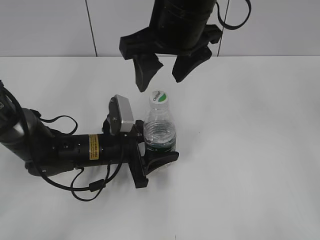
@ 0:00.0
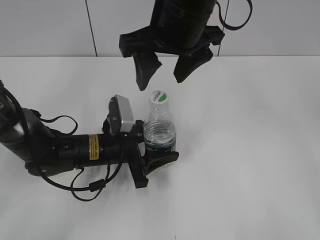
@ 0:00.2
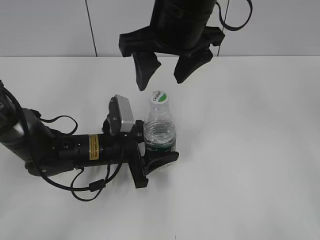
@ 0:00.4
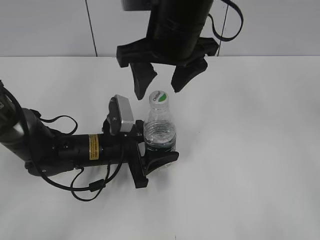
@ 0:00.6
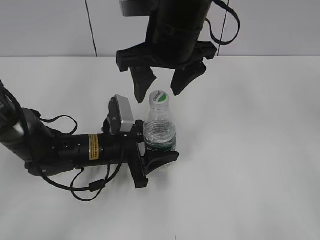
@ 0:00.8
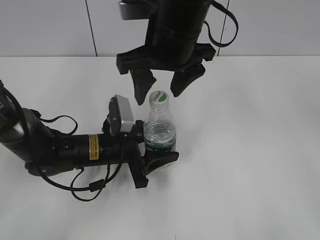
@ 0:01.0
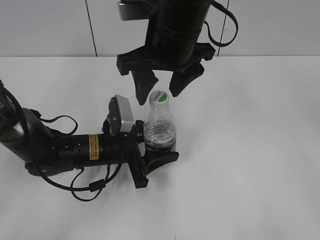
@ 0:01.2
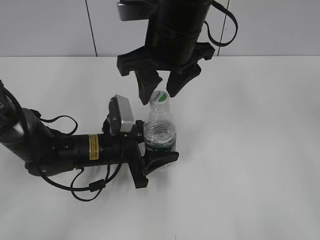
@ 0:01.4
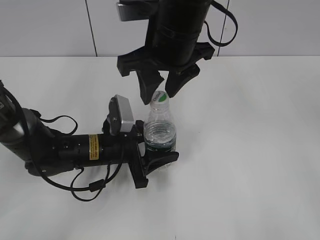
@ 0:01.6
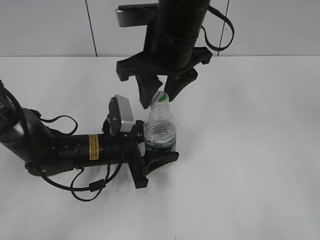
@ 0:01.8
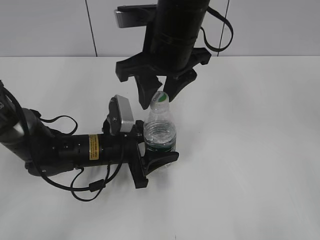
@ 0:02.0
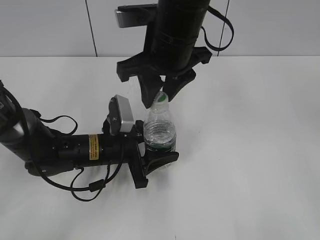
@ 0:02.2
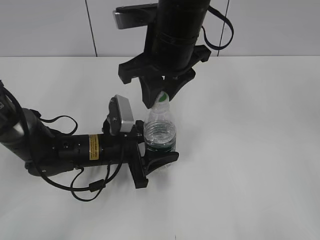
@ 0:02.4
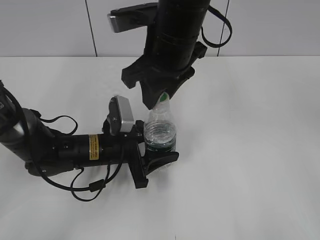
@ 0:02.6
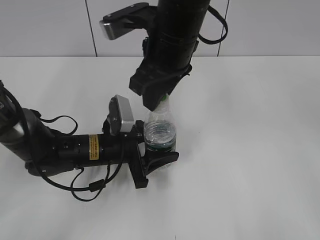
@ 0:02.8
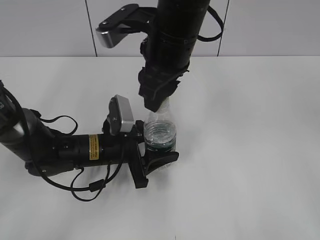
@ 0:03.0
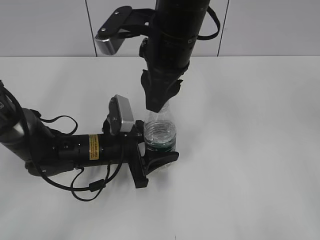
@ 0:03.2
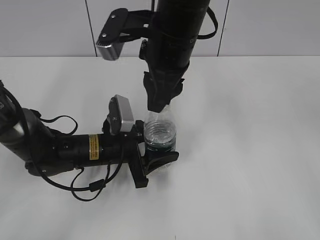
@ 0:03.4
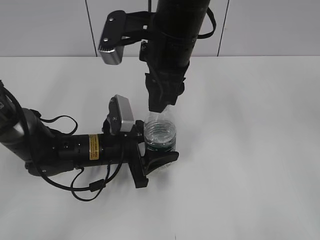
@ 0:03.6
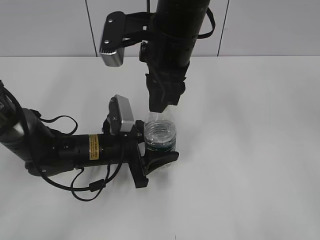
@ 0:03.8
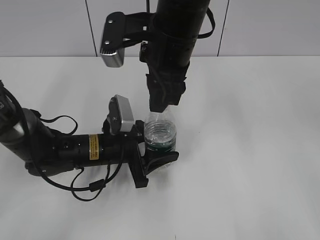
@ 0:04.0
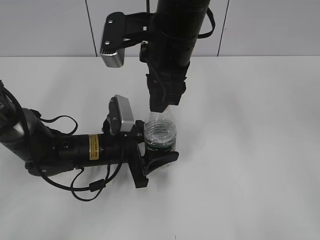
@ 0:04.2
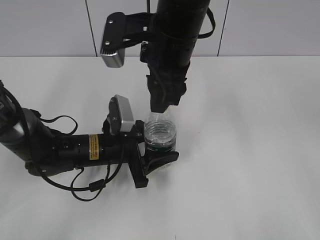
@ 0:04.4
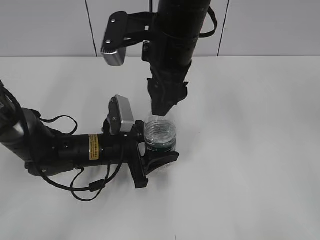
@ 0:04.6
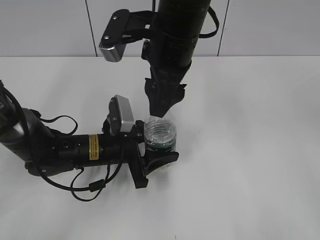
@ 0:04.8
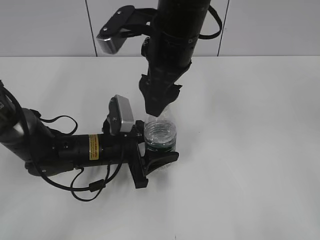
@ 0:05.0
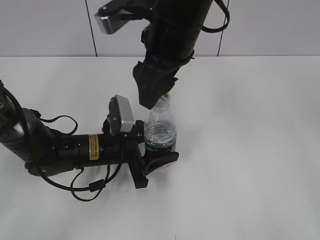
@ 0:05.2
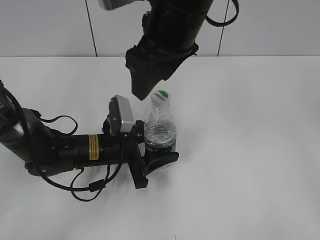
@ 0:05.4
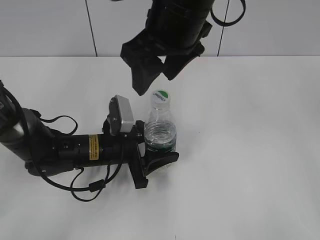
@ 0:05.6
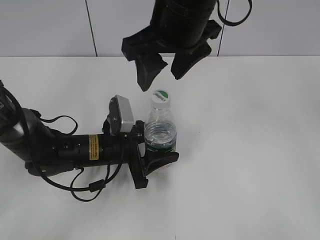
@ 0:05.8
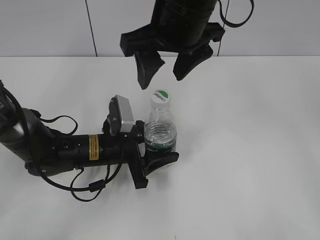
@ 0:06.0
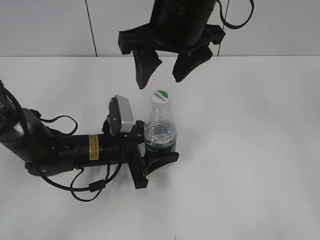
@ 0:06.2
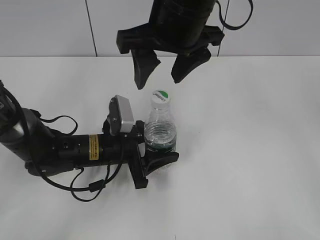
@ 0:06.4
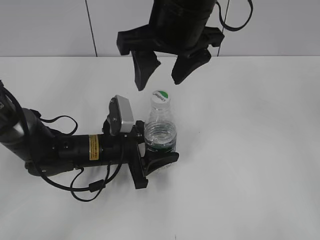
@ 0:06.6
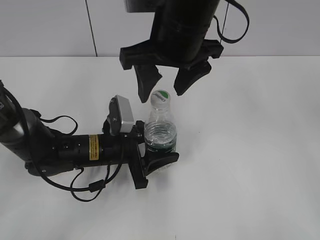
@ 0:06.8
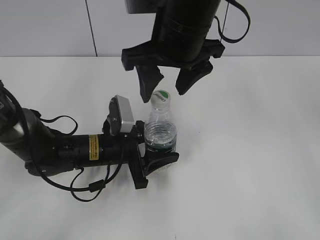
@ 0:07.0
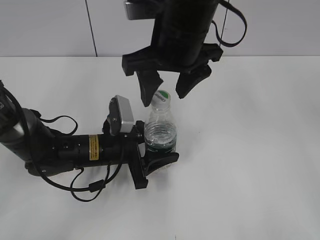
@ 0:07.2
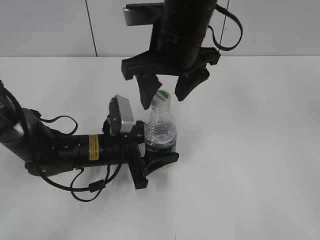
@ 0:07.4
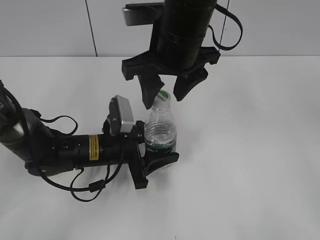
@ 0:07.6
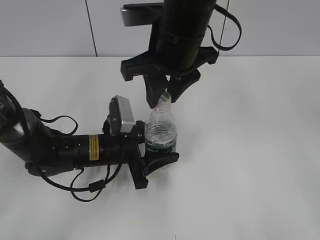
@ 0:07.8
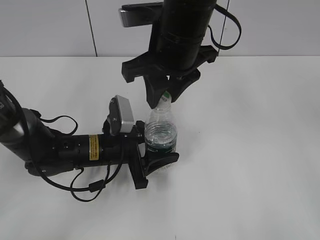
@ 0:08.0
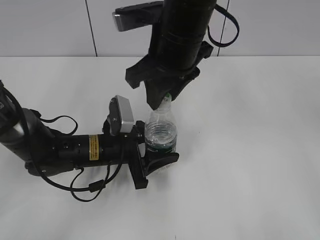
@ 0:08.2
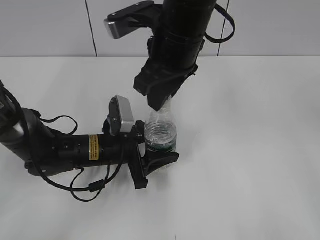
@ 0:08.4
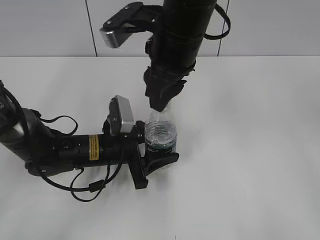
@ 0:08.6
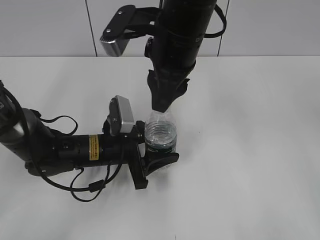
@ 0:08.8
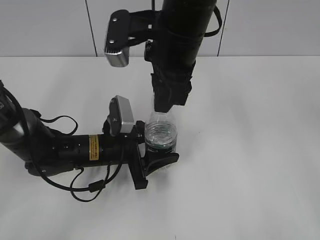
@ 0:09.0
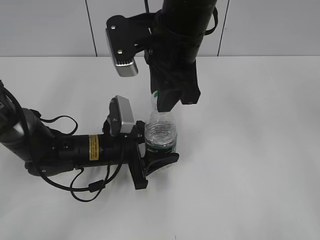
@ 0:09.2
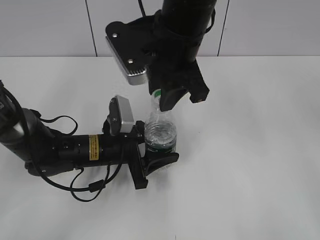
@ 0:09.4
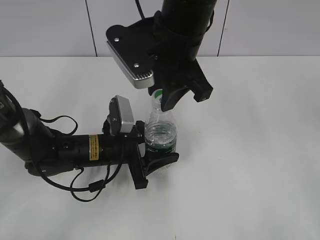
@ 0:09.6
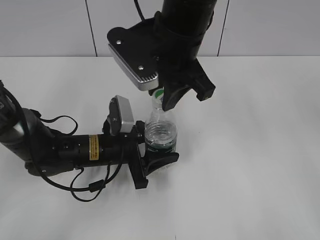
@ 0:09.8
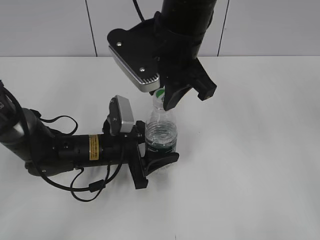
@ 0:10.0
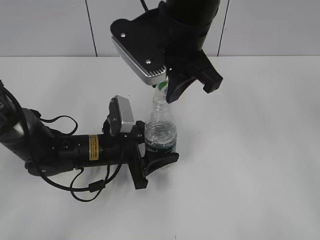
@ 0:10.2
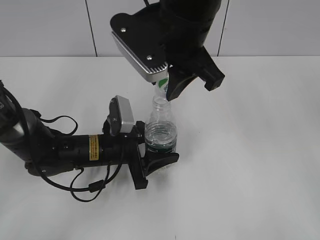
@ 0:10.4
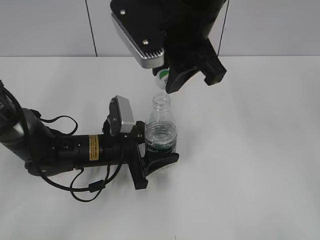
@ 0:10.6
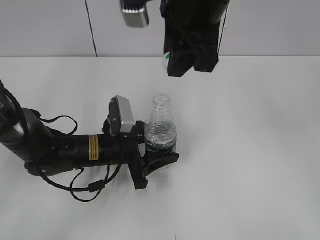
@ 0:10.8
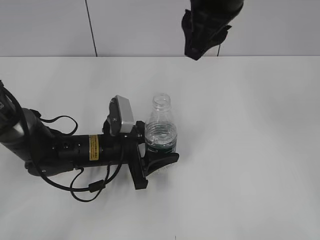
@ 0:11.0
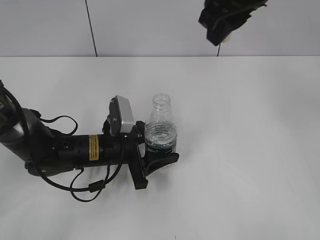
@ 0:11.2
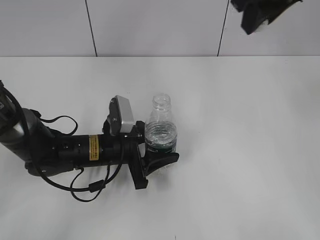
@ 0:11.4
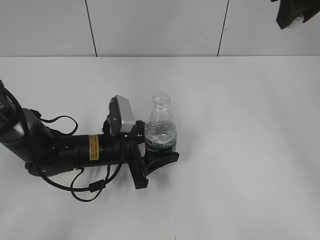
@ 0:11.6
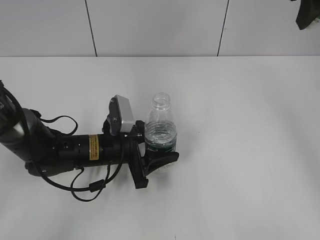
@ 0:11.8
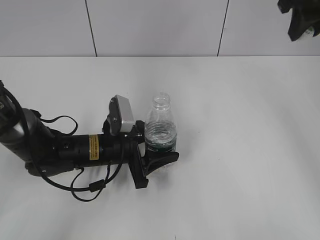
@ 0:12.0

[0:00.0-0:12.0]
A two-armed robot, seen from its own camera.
Step, 0:00.0 to 0:10.4: Unscrew the bottle cap with the right gripper while holding the bottle with the left gripper.
0:00.0 to 0:01.6: The right gripper closes up.
0:04.4 to 0:06.0: The right gripper opens its fingers.
0:06.0 to 0:07.6: The grippers stay close to where they were, moving slightly.
0:07.6 to 0:09.0: The right gripper closes its fingers.
0:10.4 to 0:12.0: The right gripper moves to the right and forward, some 20 cm.

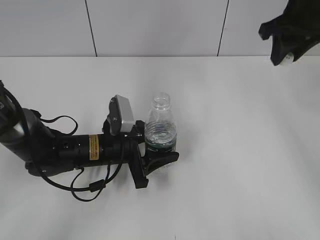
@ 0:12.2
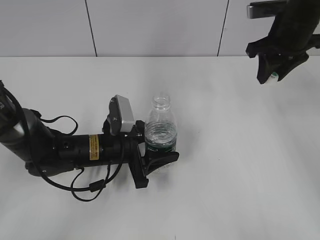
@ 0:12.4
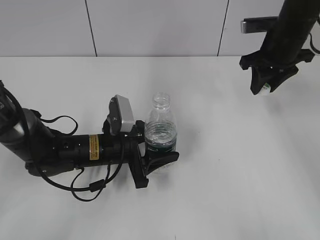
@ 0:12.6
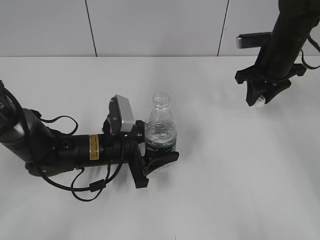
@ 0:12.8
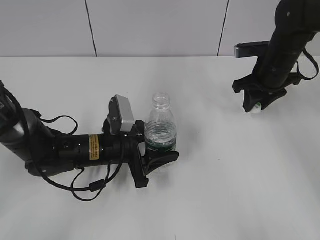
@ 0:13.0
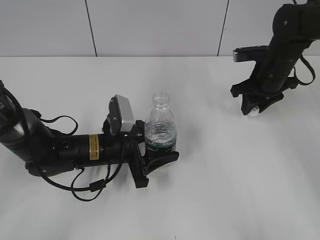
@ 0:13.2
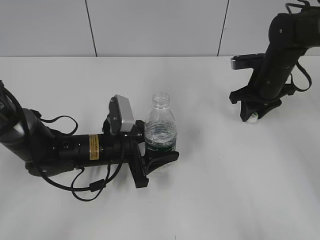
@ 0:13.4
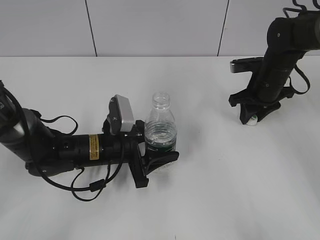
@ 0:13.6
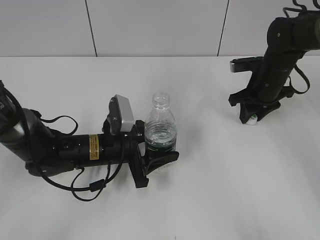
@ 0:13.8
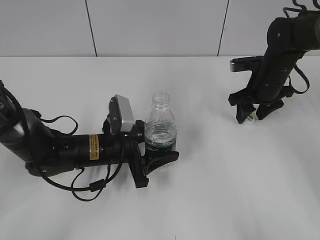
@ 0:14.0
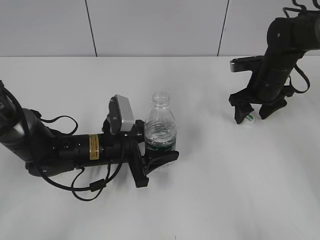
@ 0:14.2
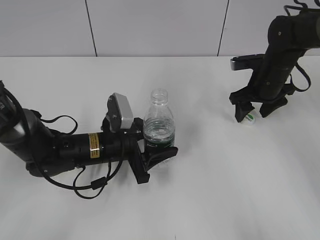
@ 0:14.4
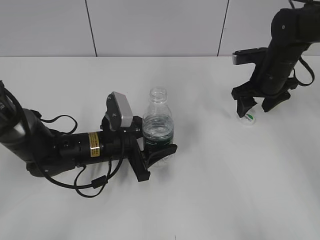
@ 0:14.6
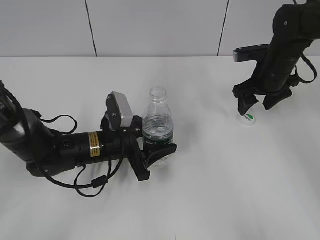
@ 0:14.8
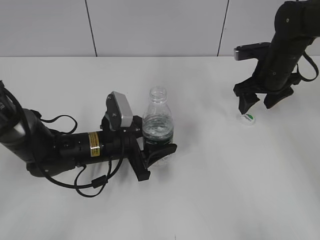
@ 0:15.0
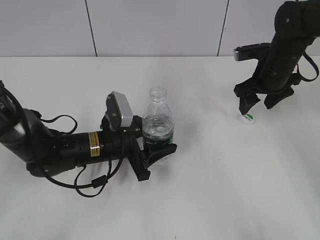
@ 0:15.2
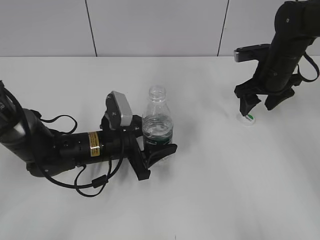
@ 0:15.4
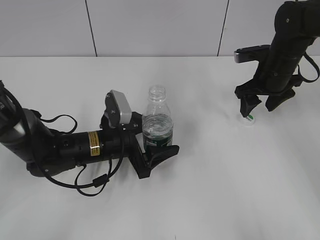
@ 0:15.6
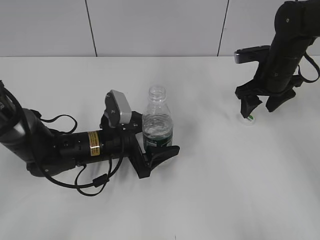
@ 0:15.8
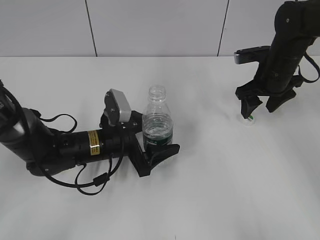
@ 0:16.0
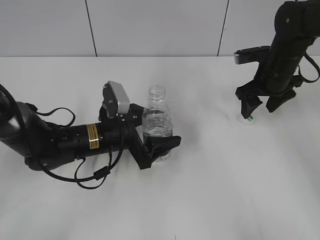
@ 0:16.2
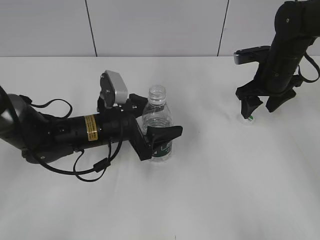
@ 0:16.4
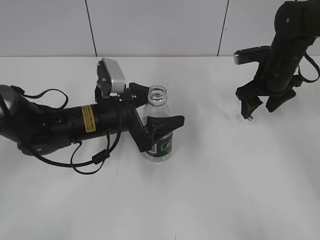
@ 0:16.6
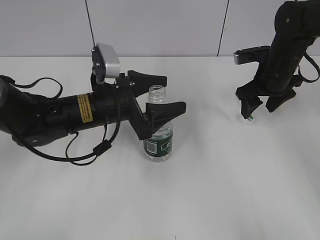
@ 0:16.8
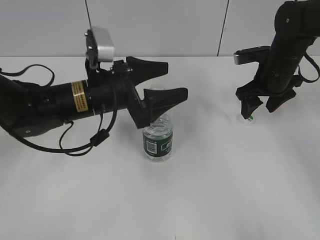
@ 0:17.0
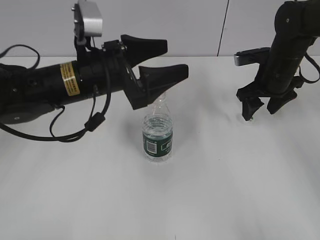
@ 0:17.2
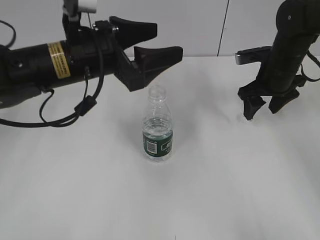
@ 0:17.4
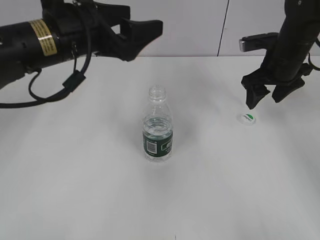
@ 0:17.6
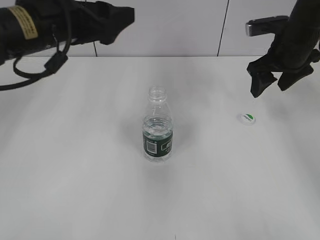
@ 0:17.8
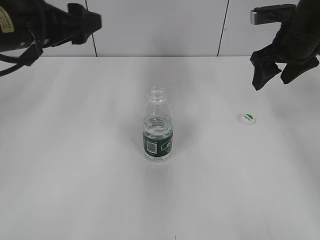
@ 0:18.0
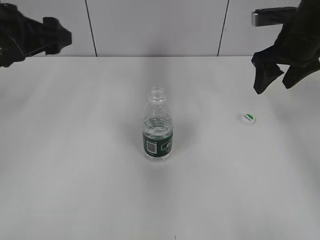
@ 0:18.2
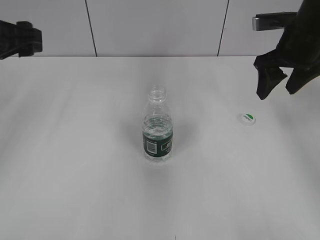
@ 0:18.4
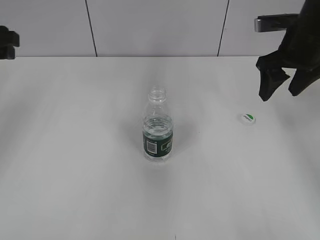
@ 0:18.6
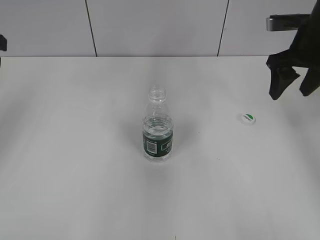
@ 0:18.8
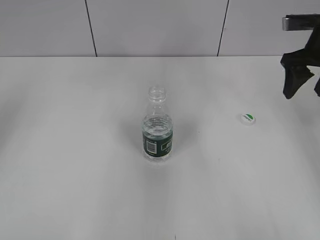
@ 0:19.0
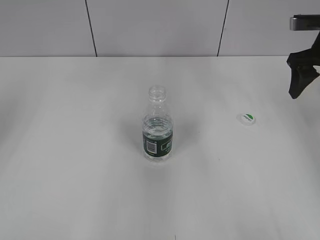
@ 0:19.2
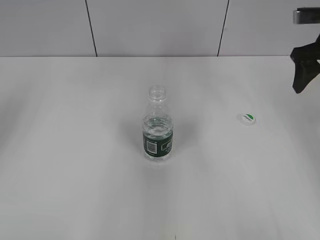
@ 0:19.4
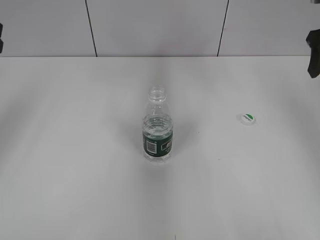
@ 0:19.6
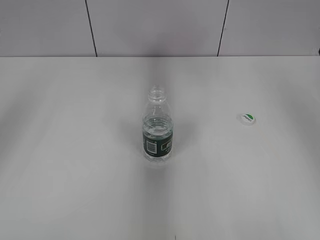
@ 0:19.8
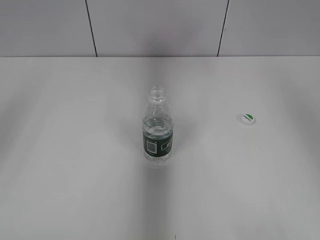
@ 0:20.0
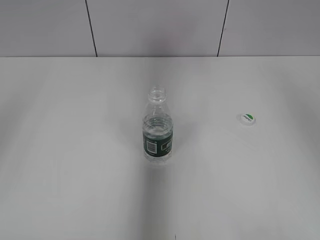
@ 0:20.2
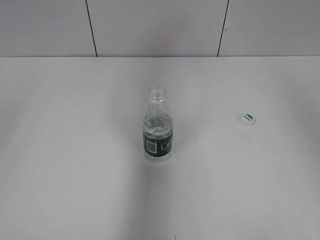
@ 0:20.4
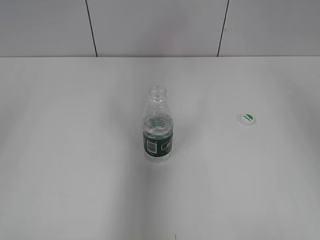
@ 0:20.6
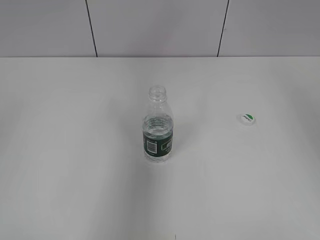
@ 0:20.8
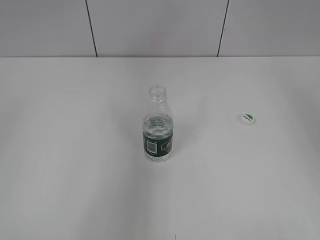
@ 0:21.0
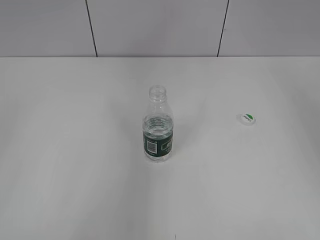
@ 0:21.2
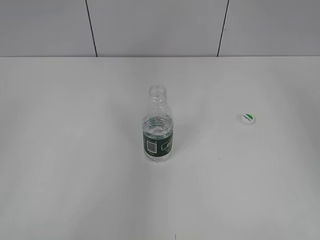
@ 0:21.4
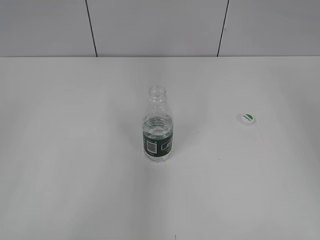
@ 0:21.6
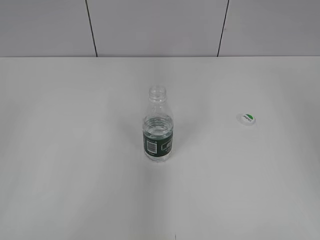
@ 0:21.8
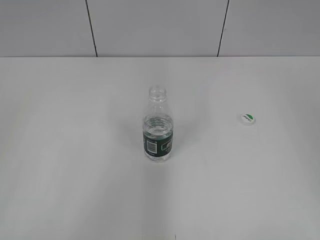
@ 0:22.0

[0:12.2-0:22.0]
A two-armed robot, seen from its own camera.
Step, 0:12.2 to 0:14.8: Place the bottle cap on the table with the right gripper.
Step, 0:15.2 to 0:16.6: Place the bottle on the table with the left gripper.
0:12.2 to 0:13.6: The right gripper is displaced downward by about 15 cm.
0:13.6 to 0:15.0: The right gripper opens up.
0:15.0 to 0:16.4: The left gripper opens its fingers.
0:16.4 to 0:17.8: The right gripper travels upward by approximately 5 cm. Meanwhile the left gripper goes approximately 20 cm upward.
0:17.8 to 0:19.2: The left gripper shifts some 20 cm to the left, and closes its fingers; the right gripper travels to the right by approximately 5 cm.
0:19.2 to 0:20.6: The right gripper moves upward and backward, approximately 25 cm. Meanwhile the left gripper moves backward and upward, roughly 30 cm.
0:20.6 to 0:22.0: The left gripper is displaced downward and backward by some 15 cm. The right gripper travels backward by about 15 cm.
